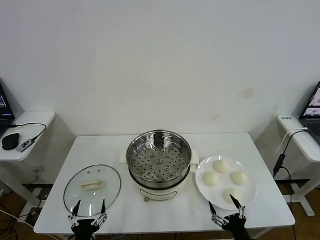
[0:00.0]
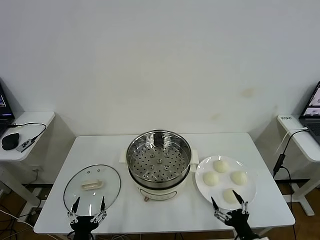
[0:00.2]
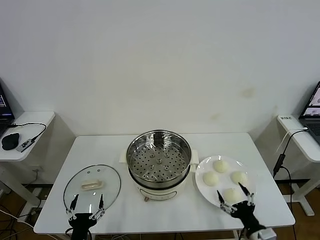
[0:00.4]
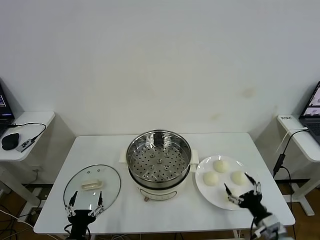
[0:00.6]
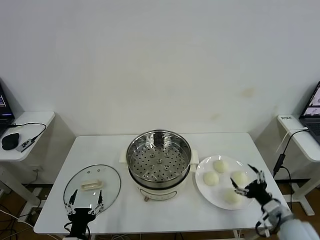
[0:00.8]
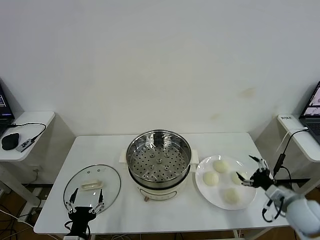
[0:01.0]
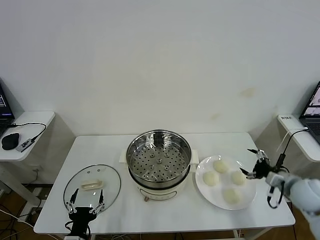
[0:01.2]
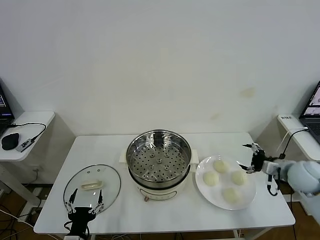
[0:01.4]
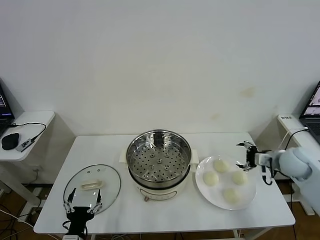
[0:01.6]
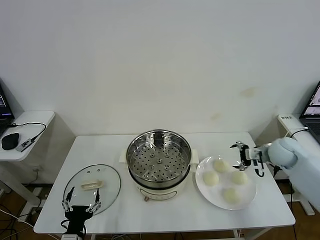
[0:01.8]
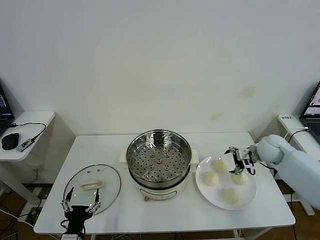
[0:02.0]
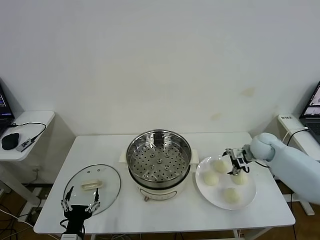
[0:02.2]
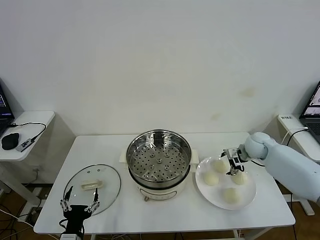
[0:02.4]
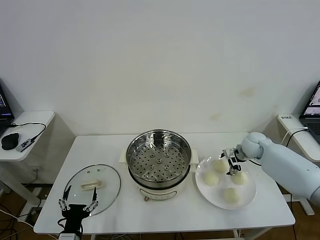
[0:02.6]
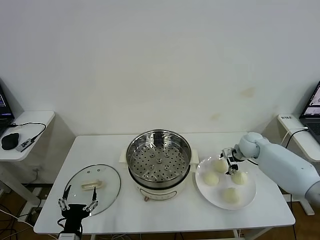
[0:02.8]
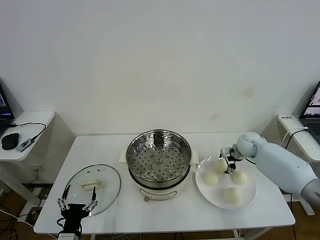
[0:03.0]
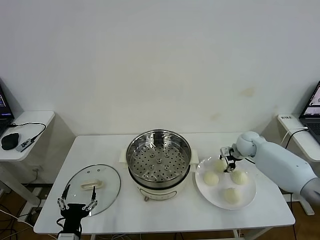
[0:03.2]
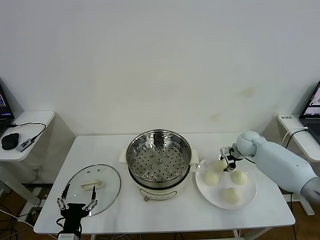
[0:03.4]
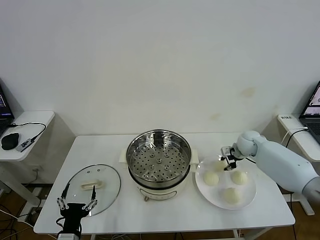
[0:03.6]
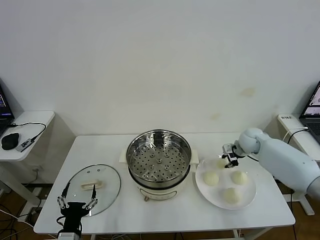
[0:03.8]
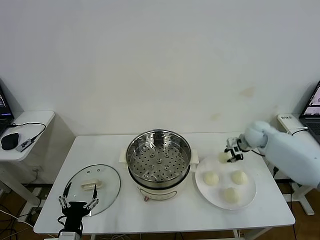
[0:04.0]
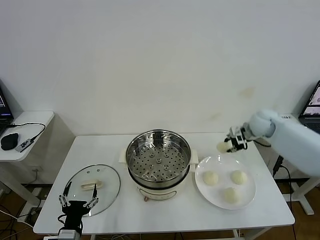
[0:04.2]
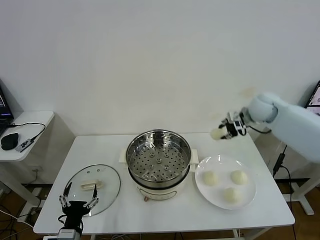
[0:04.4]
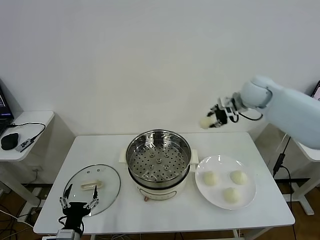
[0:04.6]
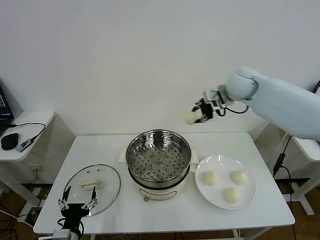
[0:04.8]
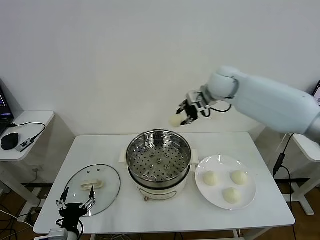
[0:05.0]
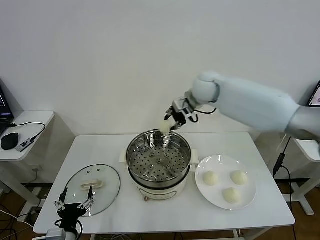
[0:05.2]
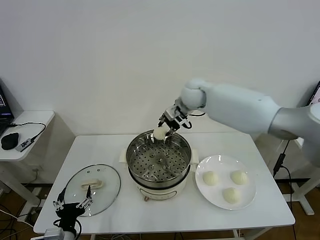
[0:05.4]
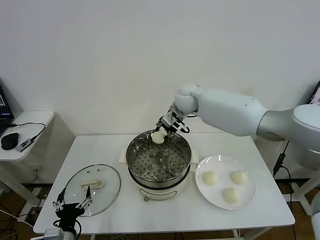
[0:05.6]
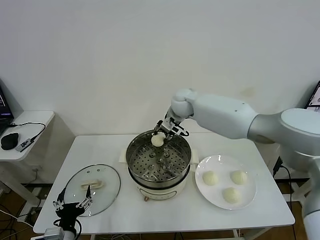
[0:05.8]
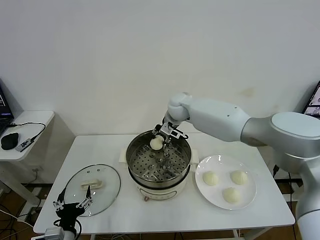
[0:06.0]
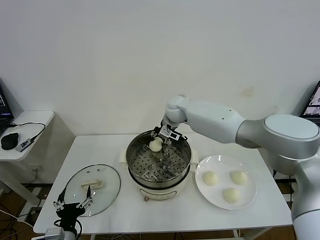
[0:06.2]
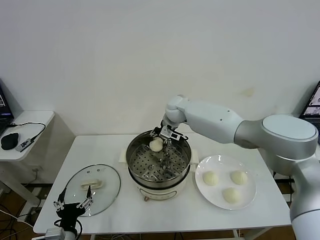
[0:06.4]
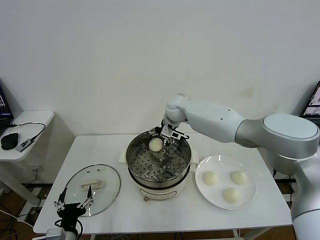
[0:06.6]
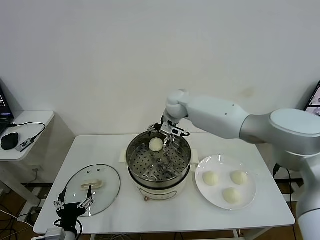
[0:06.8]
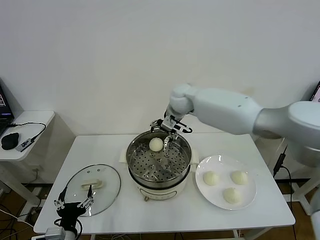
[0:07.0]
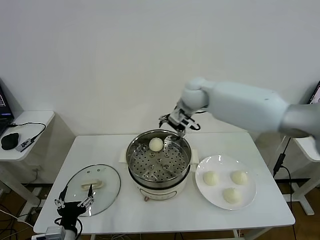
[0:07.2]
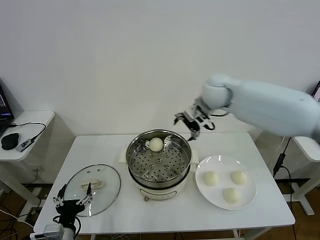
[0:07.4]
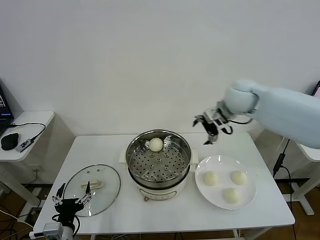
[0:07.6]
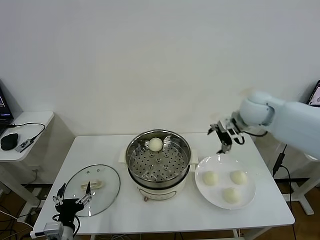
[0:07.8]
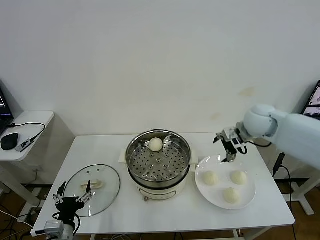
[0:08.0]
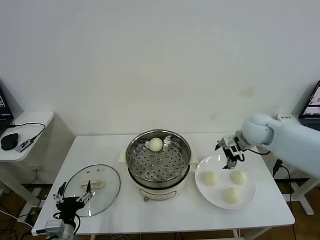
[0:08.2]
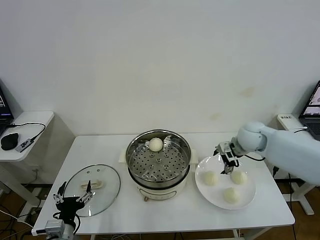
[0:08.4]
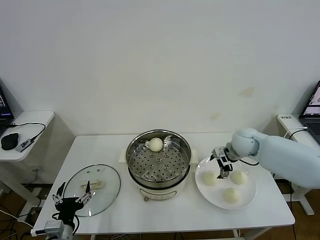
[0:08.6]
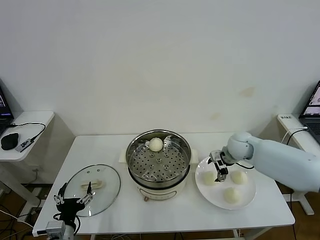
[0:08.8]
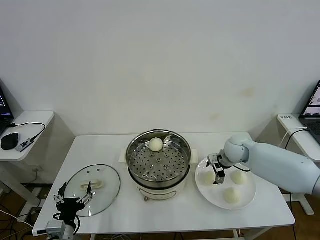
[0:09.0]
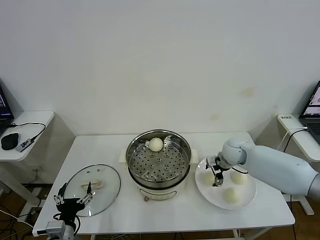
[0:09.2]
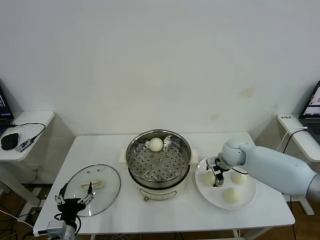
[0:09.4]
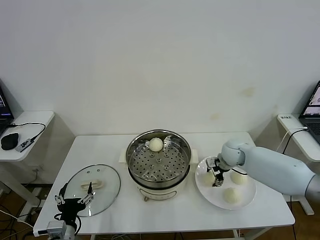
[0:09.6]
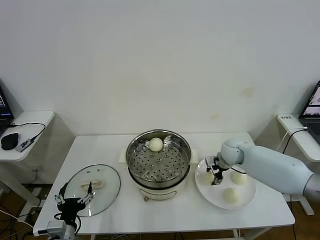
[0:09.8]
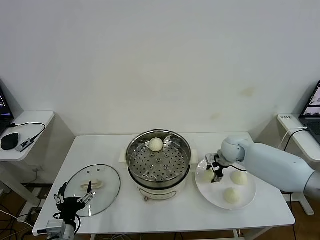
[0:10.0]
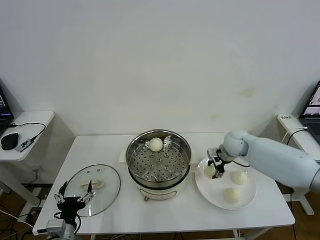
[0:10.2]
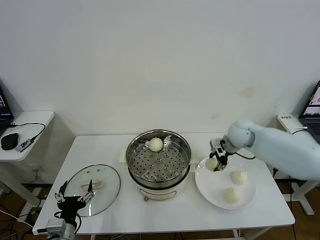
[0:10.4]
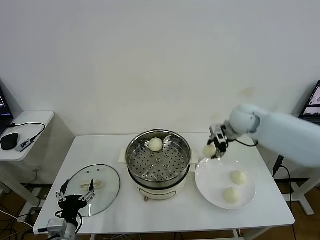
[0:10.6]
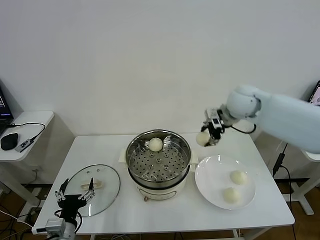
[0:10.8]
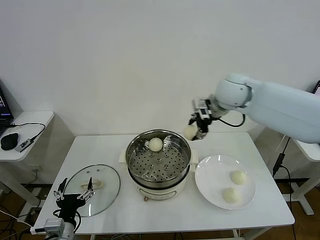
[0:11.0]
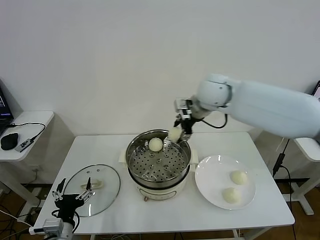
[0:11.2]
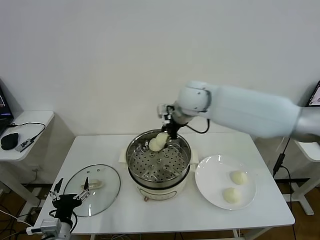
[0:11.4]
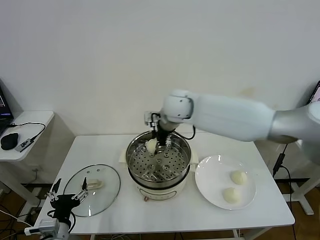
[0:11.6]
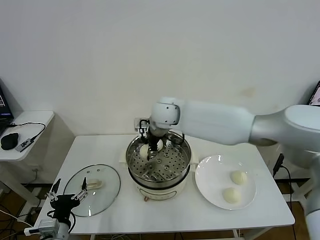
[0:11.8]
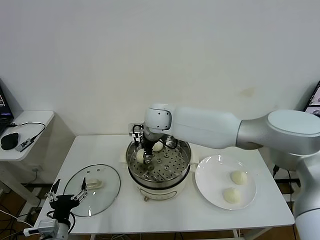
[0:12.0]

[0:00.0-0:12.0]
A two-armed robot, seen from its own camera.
Task of the whole recording: take steamed baozi put them in steamer then cover it.
Step, 0:00.0 to 0:03.4: Grasp the baozi in the plate with right gripper.
Step, 0:03.6 to 0:06.4: Place the baozi on the steamer with right gripper.
Step, 0:06.6 to 0:09.8: Grasp the baozi in the plate with right gripper.
0:01.6 to 0:03.0: The right gripper heads forward, to the left and downward, covering roughly 15 cm.
0:03.0 to 0:04.4: The right gripper heads upward, covering about 20 cm, and closes up.
0:04.4 to 0:06.0: The right gripper goes about 25 cm to the left.
0:06.0 to 0:07.6: The right gripper shifts some 20 cm to the right, upward and backward, and opens its fingers.
0:07.6 to 0:09.0: The right gripper shifts approximately 20 cm downward.
0:09.0 to 0:10.4: The right gripper heads upward, covering roughly 5 cm, and closes.
0:10.4 to 0:12.0: The right gripper moves to the left, some 30 cm.

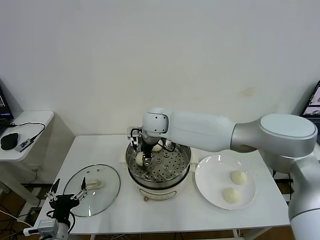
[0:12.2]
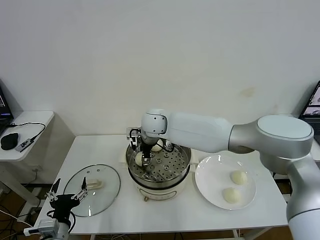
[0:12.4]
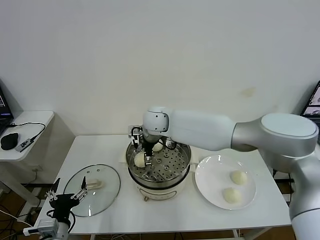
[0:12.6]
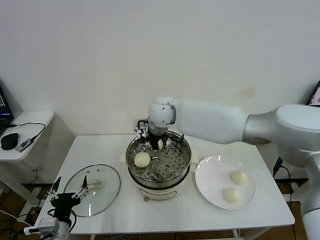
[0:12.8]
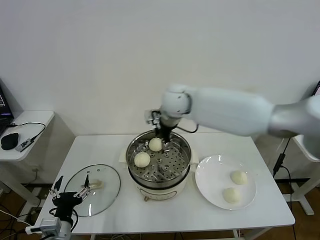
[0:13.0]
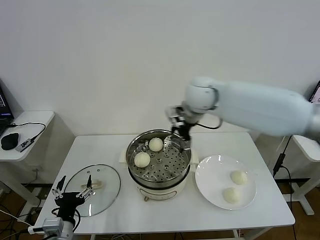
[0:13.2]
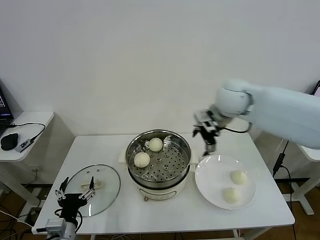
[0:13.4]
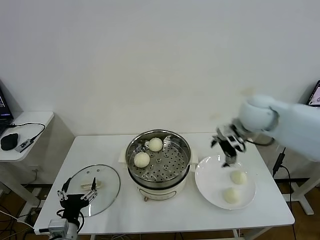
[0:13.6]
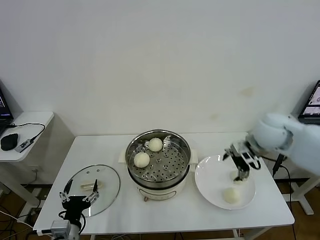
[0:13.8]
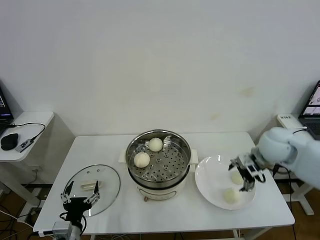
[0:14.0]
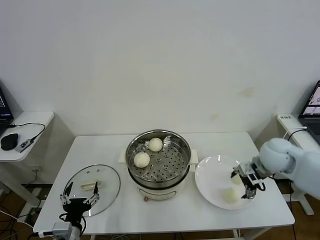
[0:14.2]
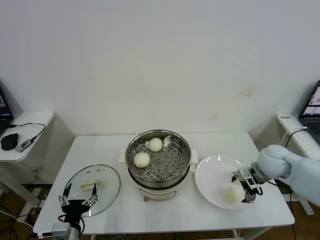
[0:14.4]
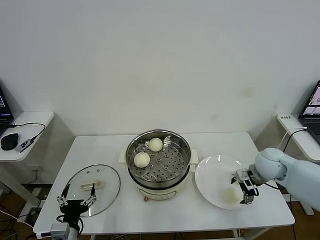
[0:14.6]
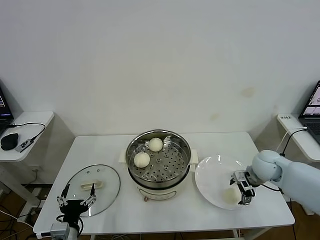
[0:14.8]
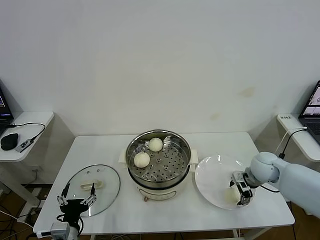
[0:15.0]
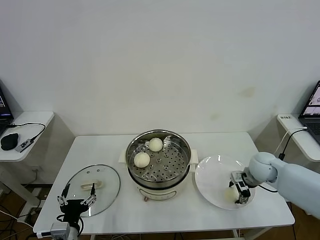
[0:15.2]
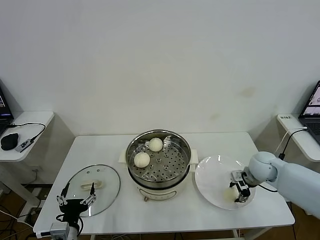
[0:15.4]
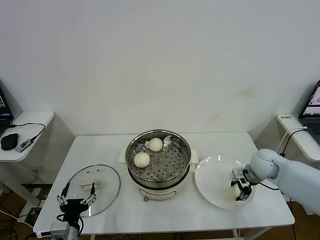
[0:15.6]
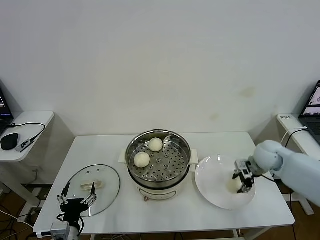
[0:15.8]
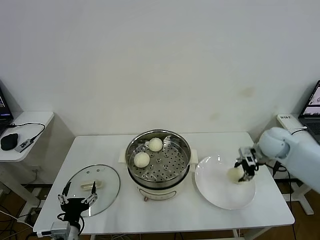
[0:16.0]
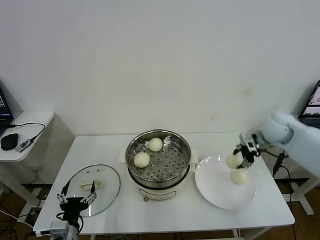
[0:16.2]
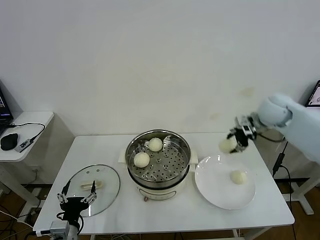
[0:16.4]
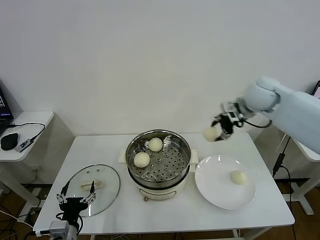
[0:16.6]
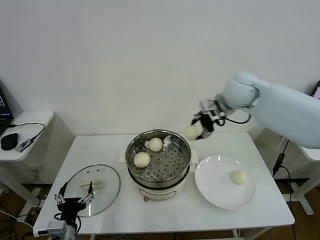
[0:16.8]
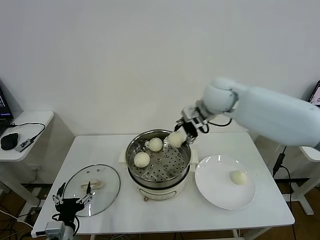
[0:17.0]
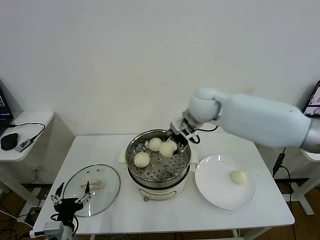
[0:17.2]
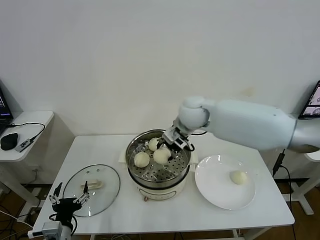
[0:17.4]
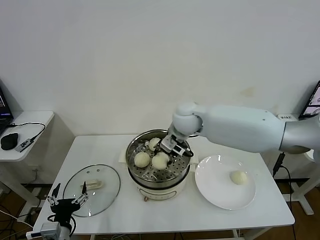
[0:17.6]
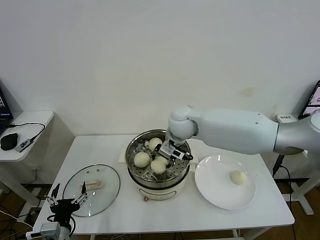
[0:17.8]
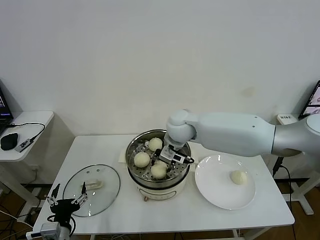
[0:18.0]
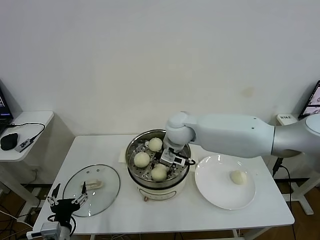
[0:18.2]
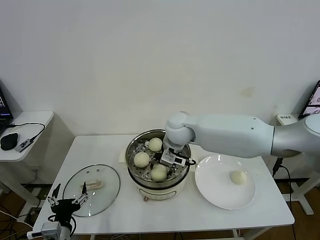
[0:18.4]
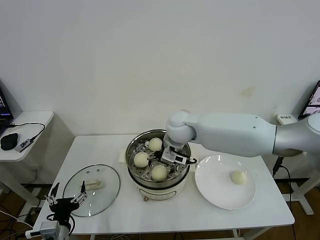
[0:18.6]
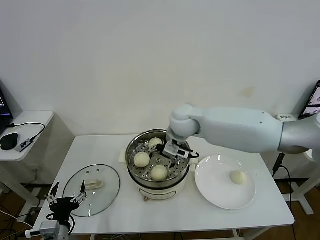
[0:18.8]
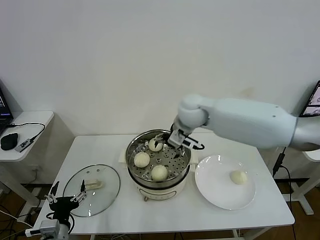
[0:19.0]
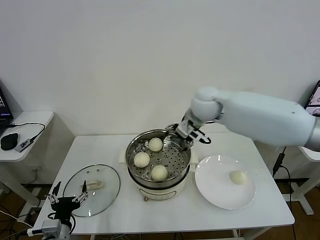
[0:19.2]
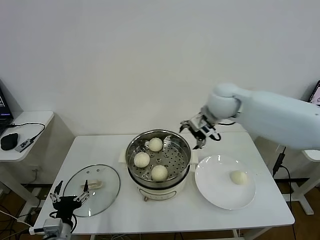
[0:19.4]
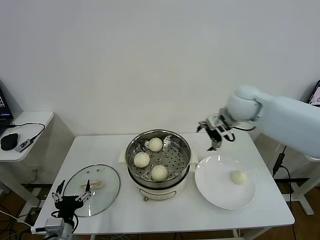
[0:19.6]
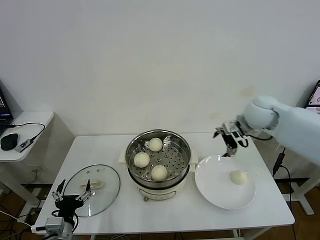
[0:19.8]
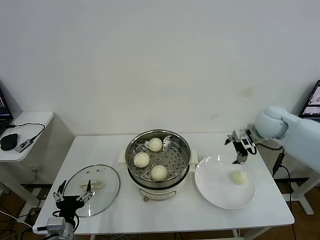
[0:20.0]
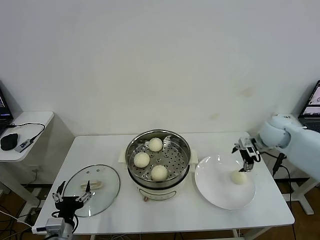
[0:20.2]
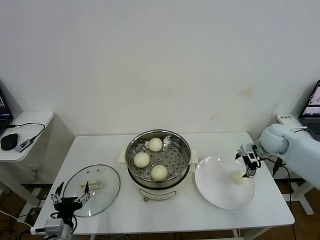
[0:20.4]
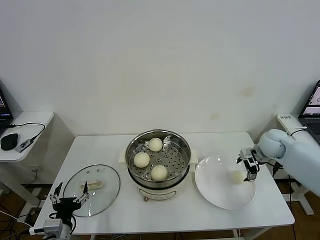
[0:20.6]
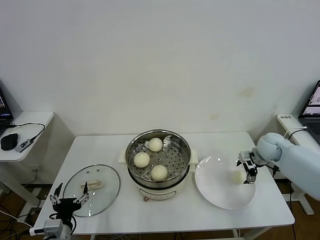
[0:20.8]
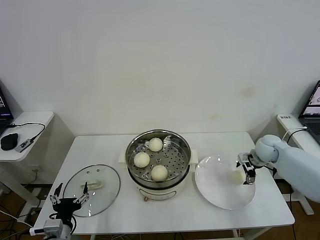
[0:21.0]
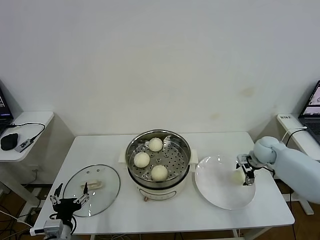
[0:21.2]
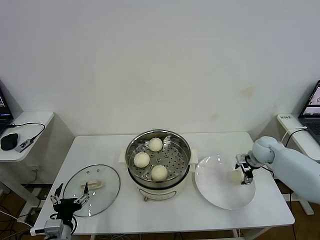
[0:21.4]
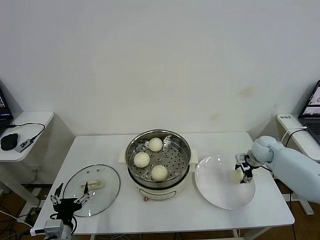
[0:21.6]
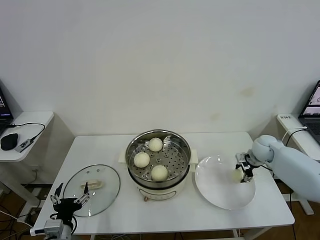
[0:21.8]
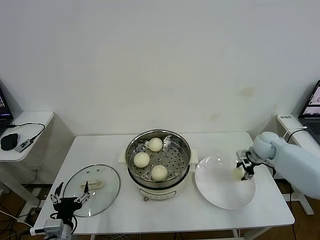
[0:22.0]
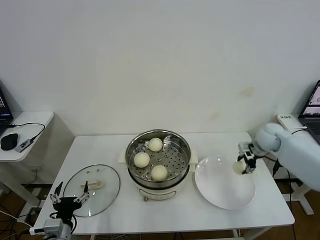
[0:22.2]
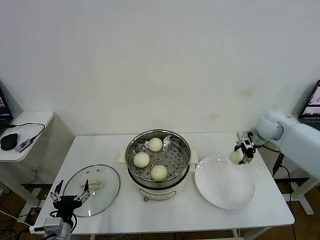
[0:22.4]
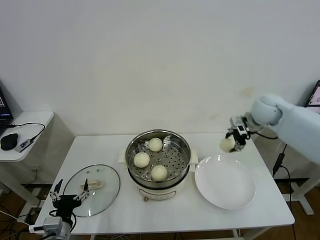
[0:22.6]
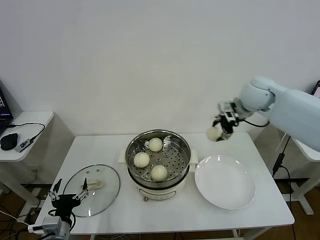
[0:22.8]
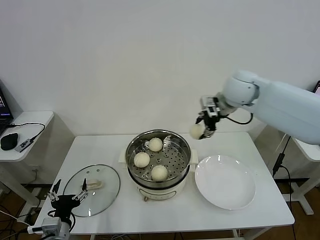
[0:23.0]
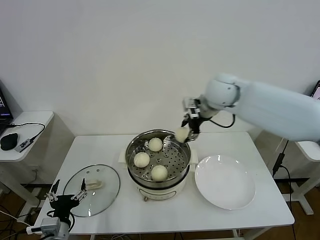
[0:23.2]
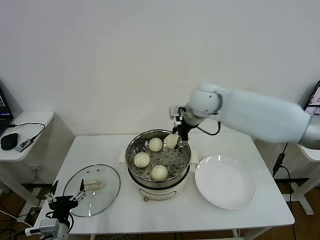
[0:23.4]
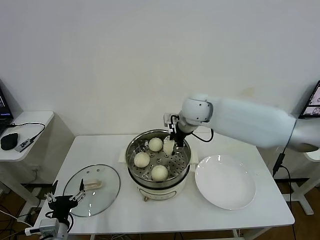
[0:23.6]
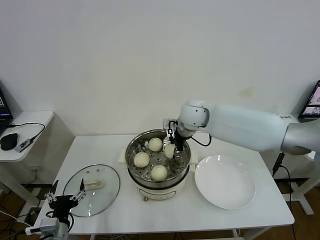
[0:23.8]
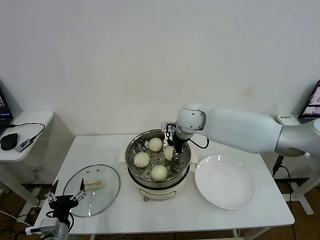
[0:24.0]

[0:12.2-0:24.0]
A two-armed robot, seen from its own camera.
Task of the whole recording: take steamed baozi put them in steamer then cover it.
Step, 0:12.8 to 0:15.4: Grasp the baozi in the plate with right gripper.
Step, 0:15.6 to 0:18.4: Place the baozi on the steamer with right gripper.
Step, 0:18.8 to 0:21.8: Grasp the baozi in the plate with right gripper.
0:12.2 to 0:13.6: The right gripper heads to the right, covering approximately 30 cm, and opens.
0:13.6 to 0:15.2: The right gripper moves downward and to the right, approximately 25 cm.
0:15.2 to 0:16.6: The right gripper moves upward and forward, about 25 cm.
0:16.6 to 0:18.2: The right gripper moves to the left and downward, approximately 25 cm.
0:18.2 to 0:19.6: The right gripper travels to the right and upward by about 20 cm, and opens.
0:19.6 to 0:21.0: The right gripper shifts approximately 25 cm downward and to the right.
0:21.0 to 0:22.6: The right gripper heads upward, covering roughly 15 cm, and closes.
0:22.6 to 0:24.0: The right gripper heads to the left, covering some 25 cm.
